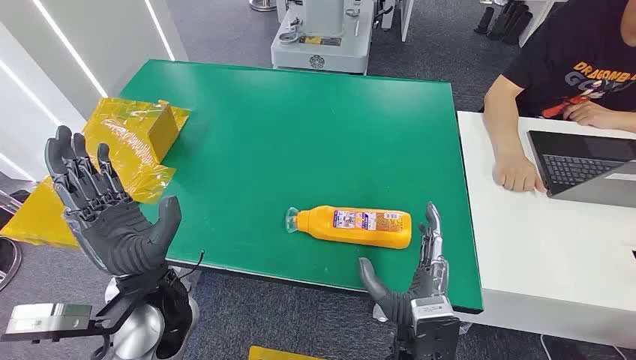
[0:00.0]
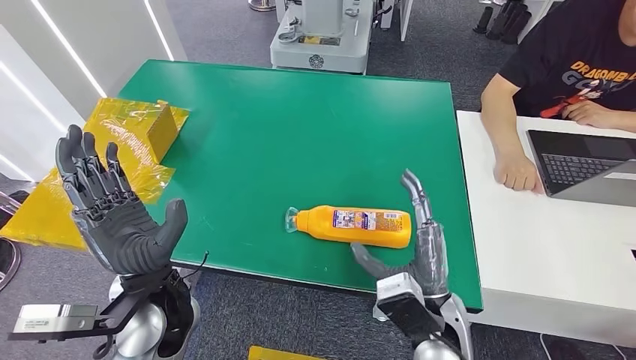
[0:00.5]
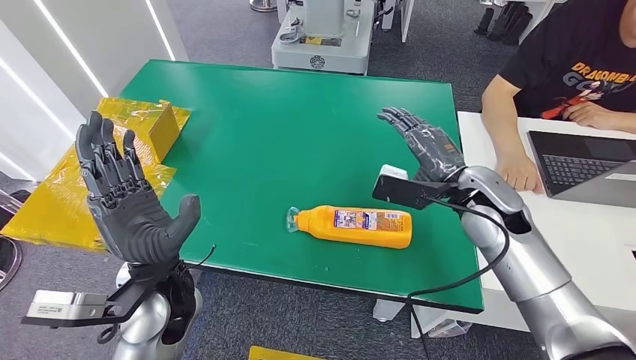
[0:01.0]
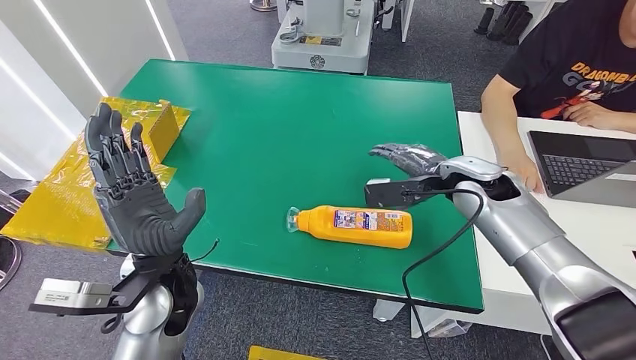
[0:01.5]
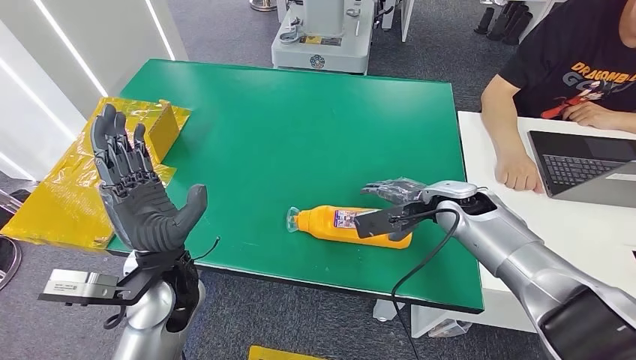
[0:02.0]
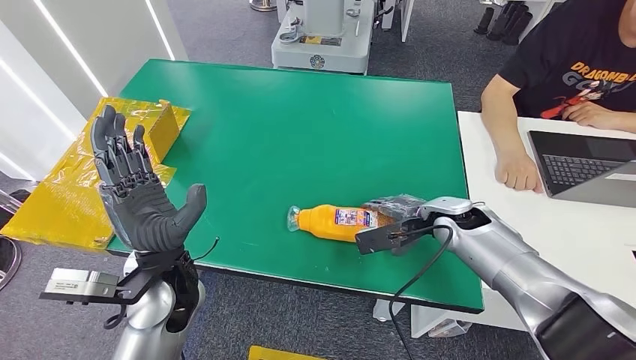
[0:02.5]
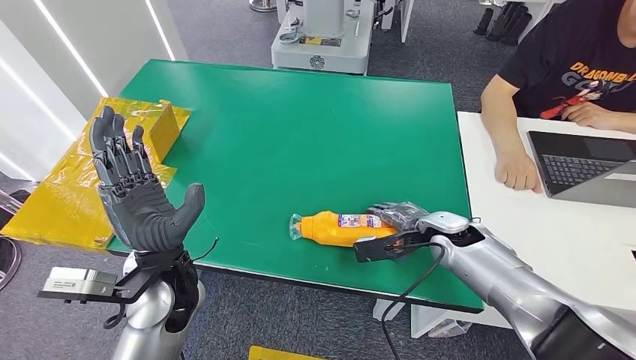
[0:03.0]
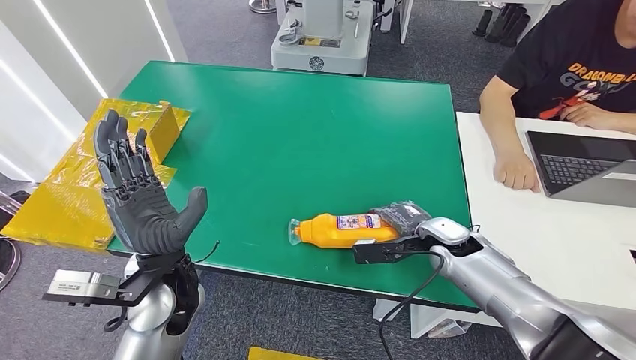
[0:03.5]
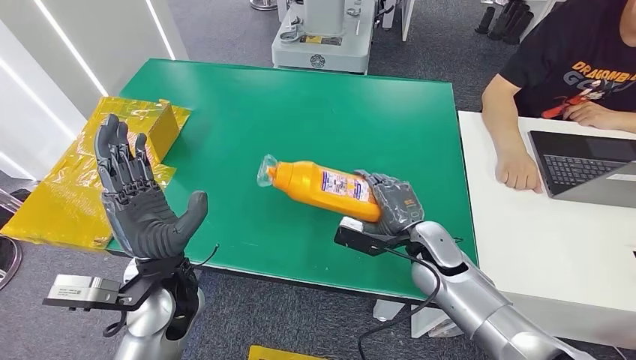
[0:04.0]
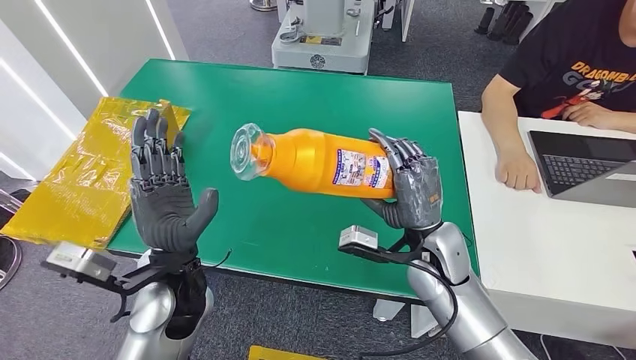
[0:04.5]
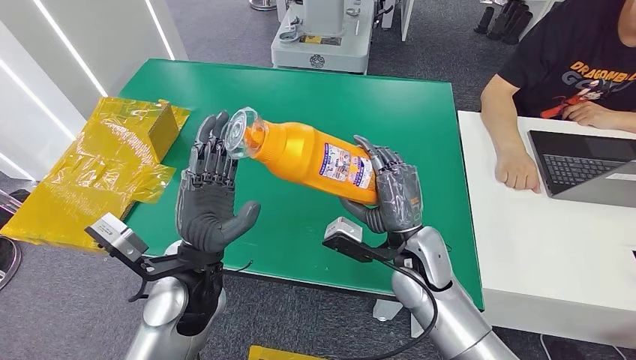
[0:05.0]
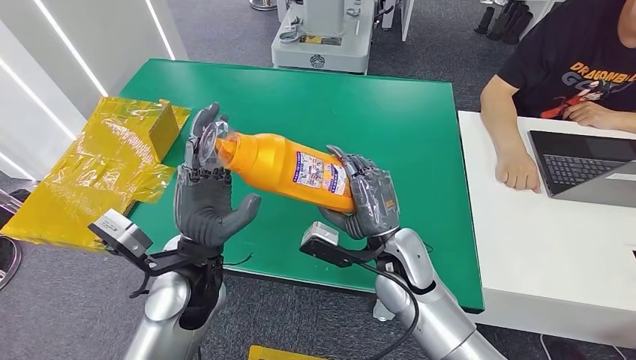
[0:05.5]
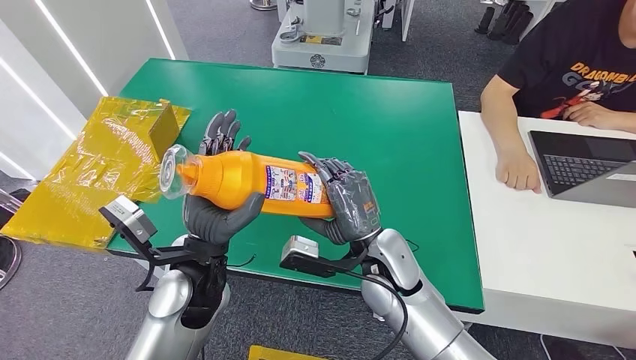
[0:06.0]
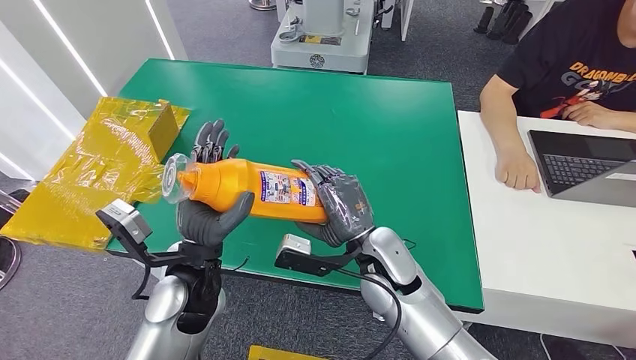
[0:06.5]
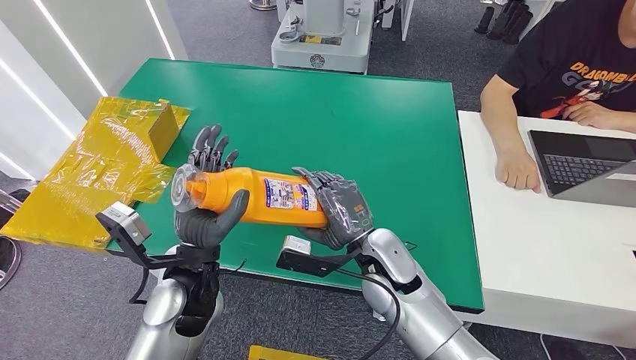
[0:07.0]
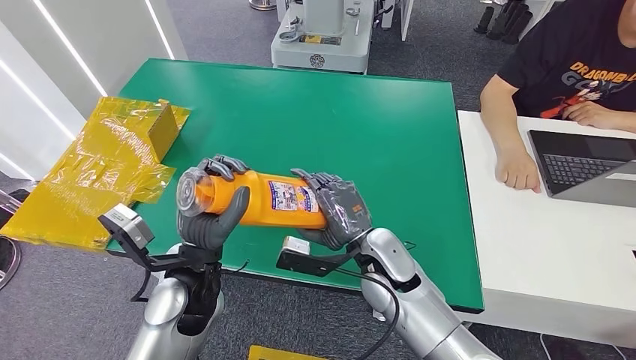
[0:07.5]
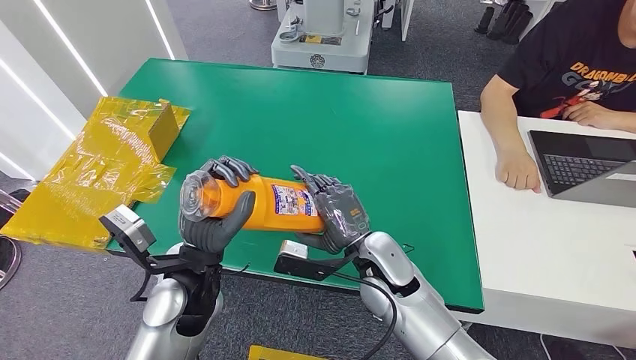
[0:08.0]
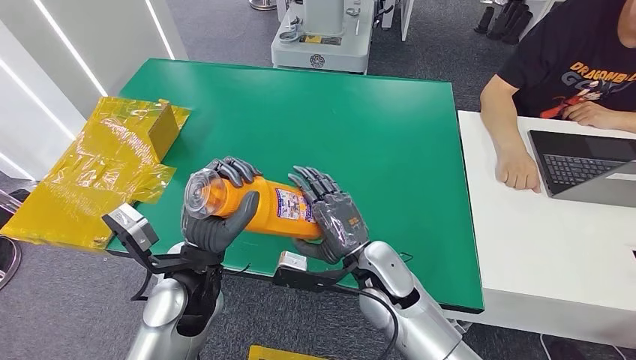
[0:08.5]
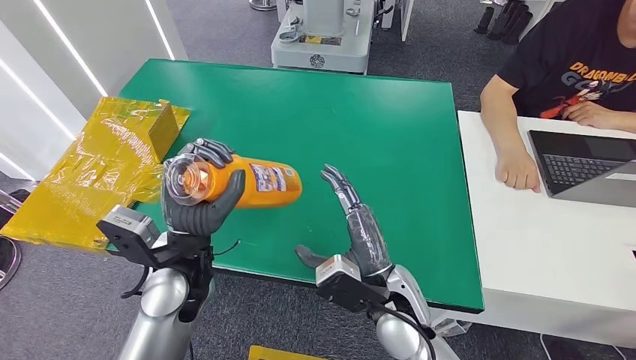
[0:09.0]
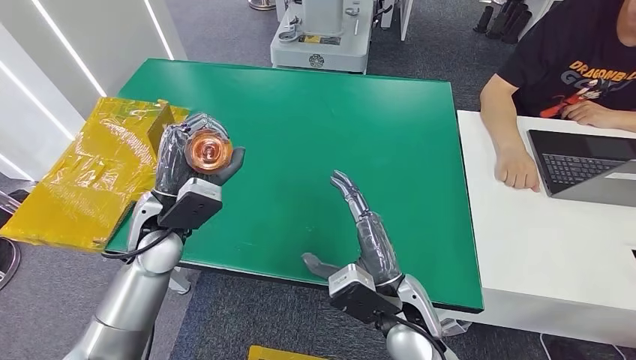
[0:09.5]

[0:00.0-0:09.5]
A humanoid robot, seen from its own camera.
Step, 0:00.0 to 0:04.0: Pick up the bottle from the table.
0:02.0 to 0:04.0: The right hand shifts some 10 cm downward, backward and to the left.
0:04.0 to 0:05.5: The right hand is displaced to the left by roughly 10 cm.
0:05.5 to 0:07.5: The hands move only a little.
0:07.5 to 0:09.5: The left hand is displaced to the left and forward by roughly 10 cm. Meanwhile the right hand travels backward by roughly 10 cm.

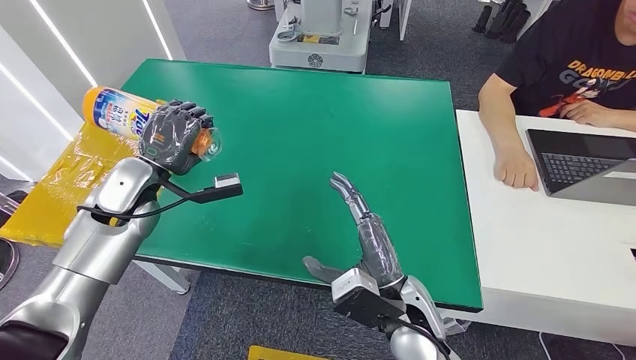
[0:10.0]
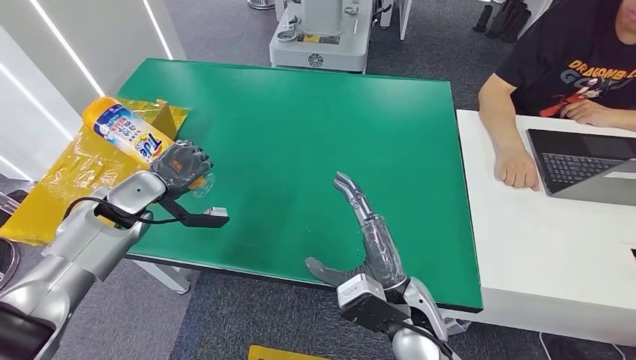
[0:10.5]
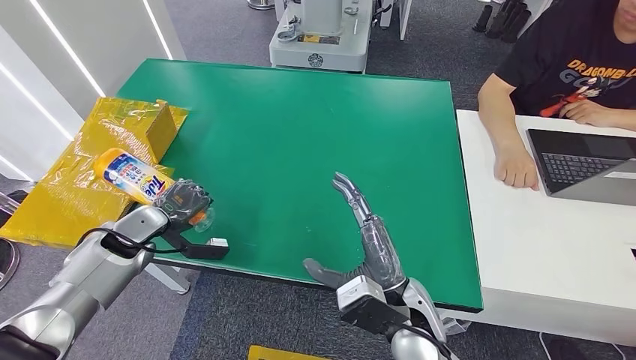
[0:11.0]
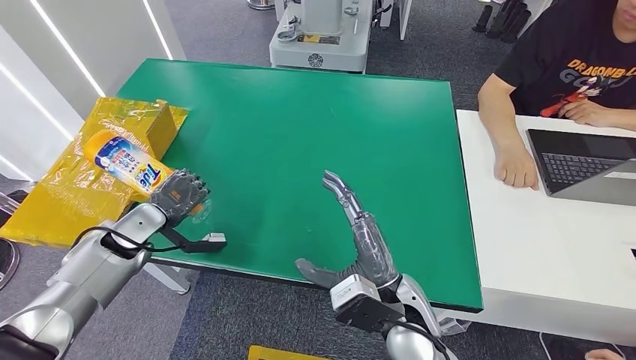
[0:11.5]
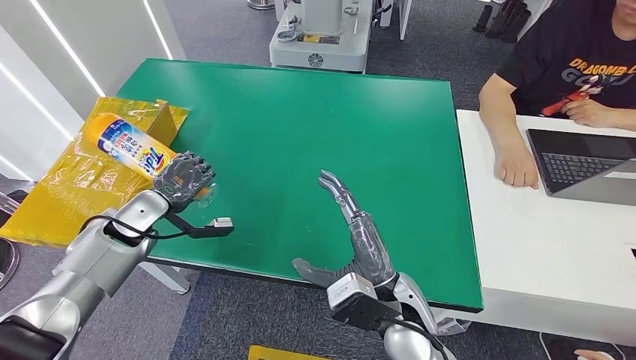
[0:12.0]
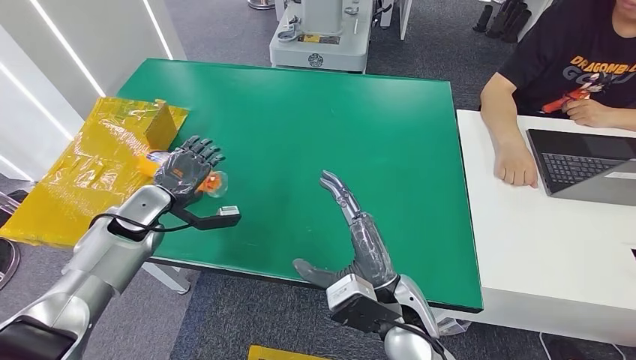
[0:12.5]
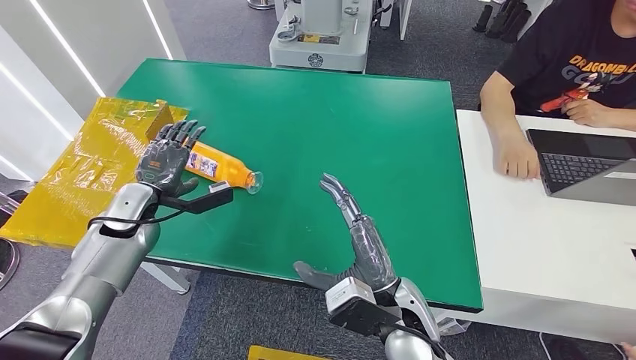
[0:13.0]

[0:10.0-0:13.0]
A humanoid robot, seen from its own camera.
Step, 0:10.0 to 0:13.0: Turn the bottle to the front side.
0:10.0 to 0:11.5: The left hand is displaced to the left, downward and backward by approximately 10 cm.
0:11.5 to 0:13.0: The left hand moves about 5 cm.

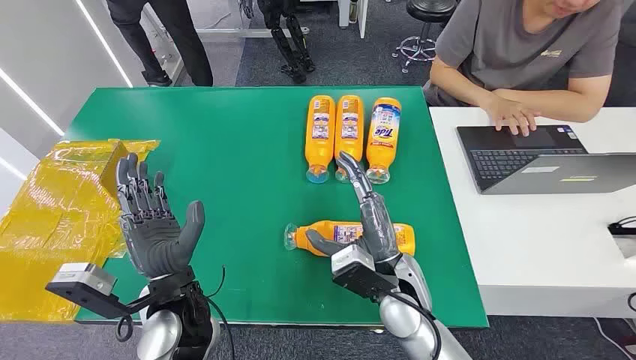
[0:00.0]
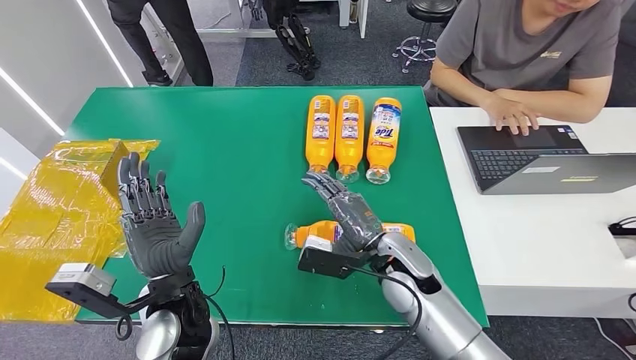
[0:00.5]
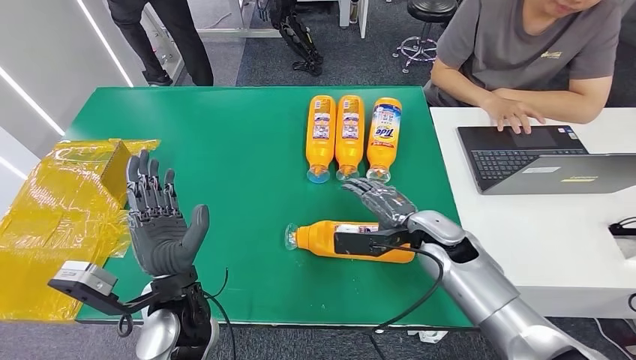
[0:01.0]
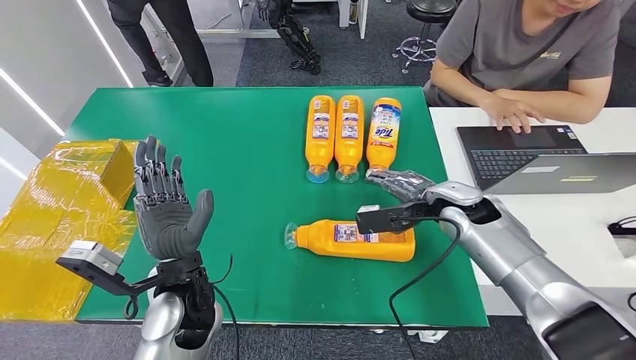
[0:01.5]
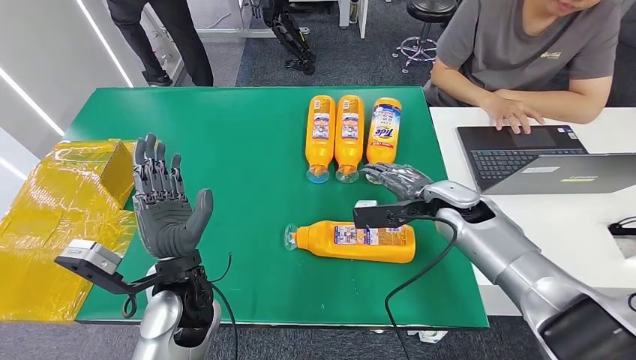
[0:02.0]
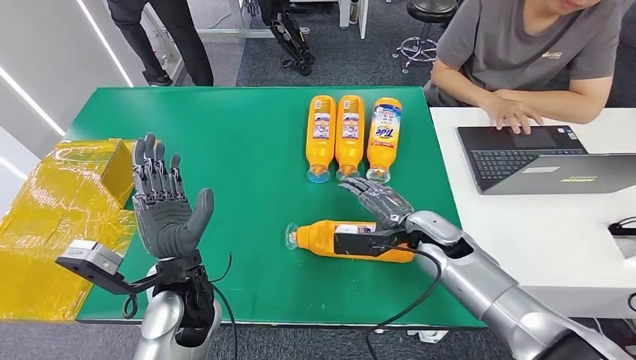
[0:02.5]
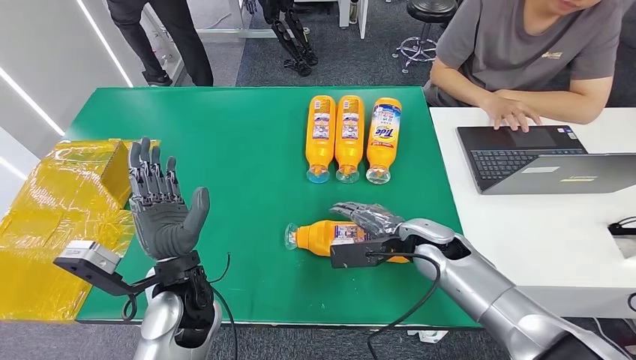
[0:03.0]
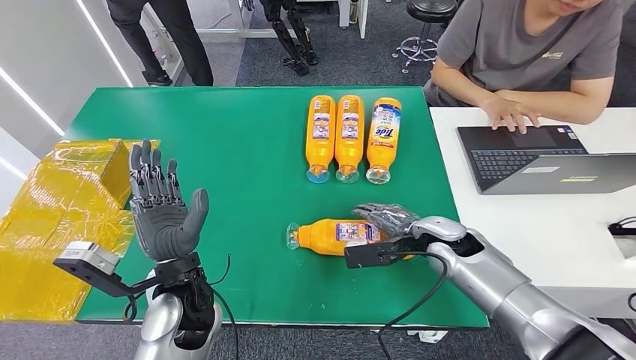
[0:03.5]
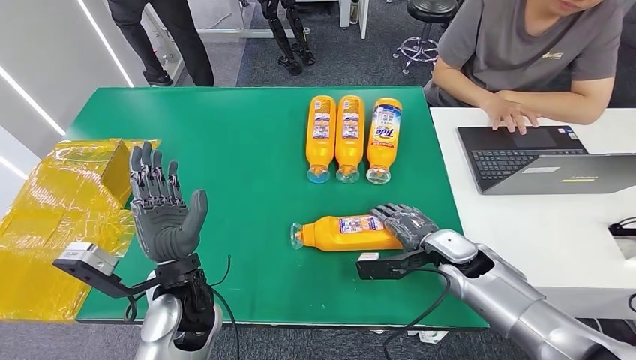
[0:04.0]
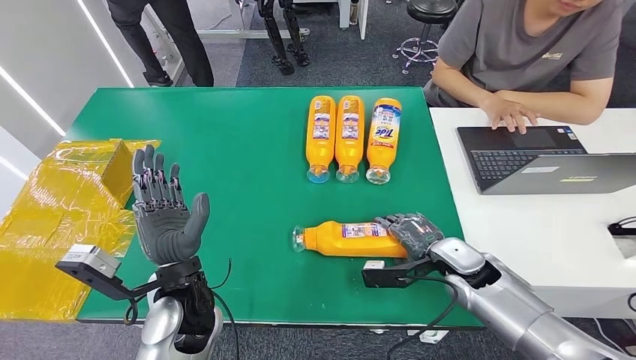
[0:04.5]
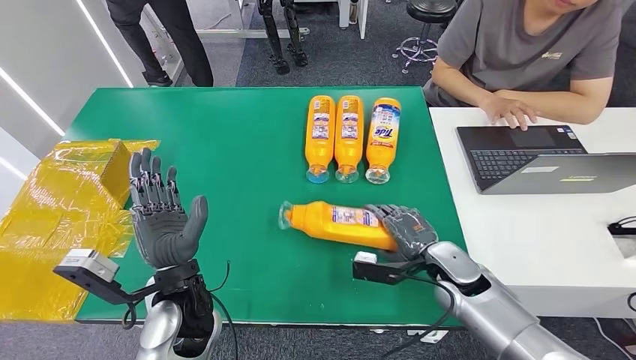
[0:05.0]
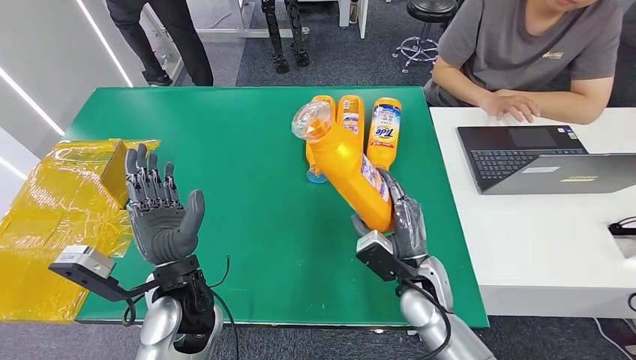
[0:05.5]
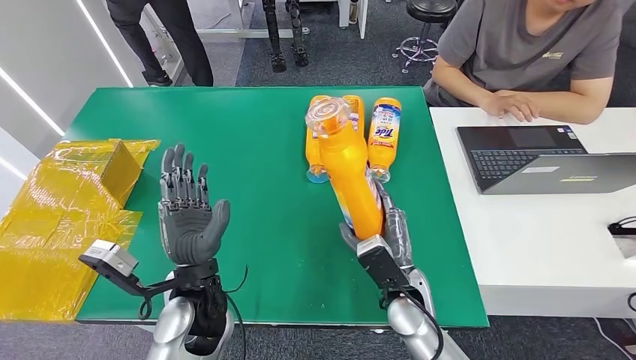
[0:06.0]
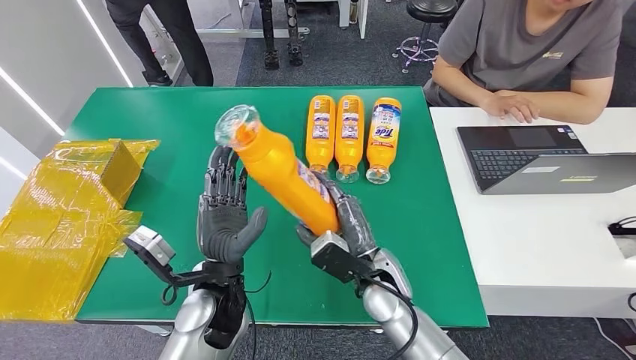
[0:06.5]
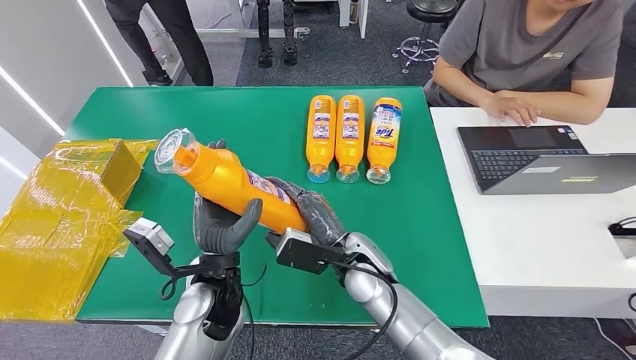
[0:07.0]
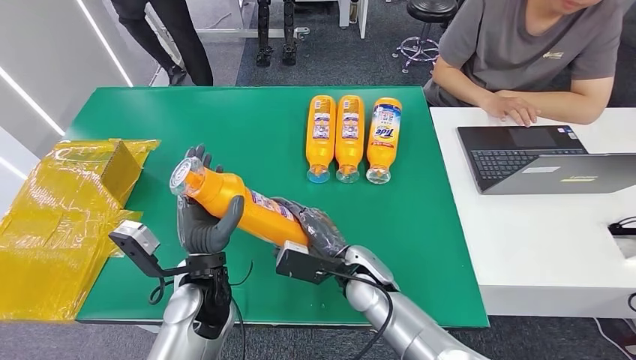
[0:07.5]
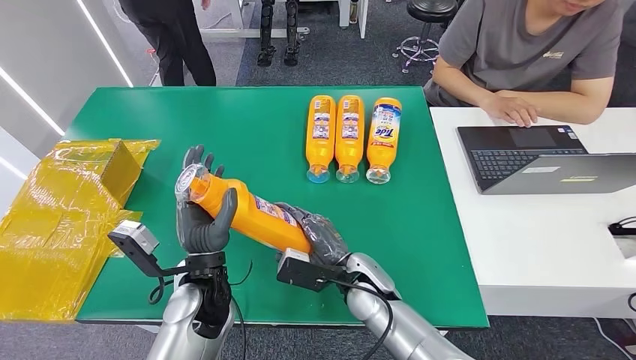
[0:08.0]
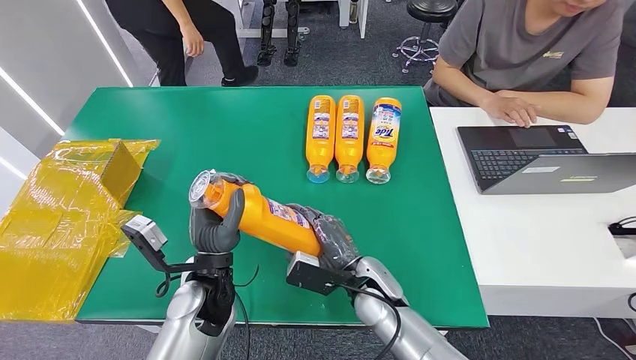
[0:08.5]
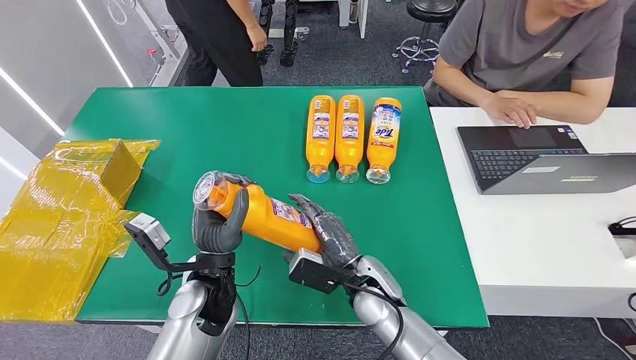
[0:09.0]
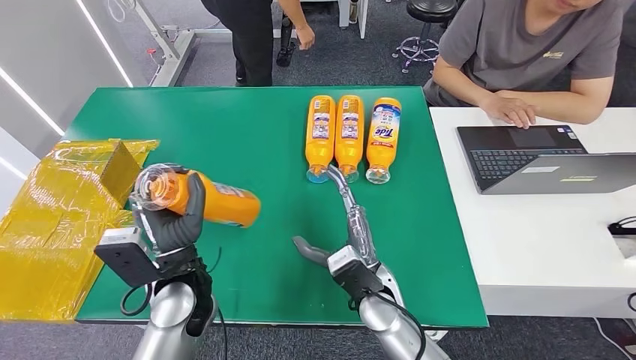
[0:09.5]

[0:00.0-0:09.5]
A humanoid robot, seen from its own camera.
Step, 0:00.0 to 0:05.5: Pick up the bottle from the table.
0:02.0 to 0:04.0: The right hand shifts roughly 10 cm downward and backward.
0:04.0 to 0:05.5: The right hand moves to the left and backward, some 10 cm.
0:05.5 to 0:07.5: The right hand shifts about 10 cm to the left.
